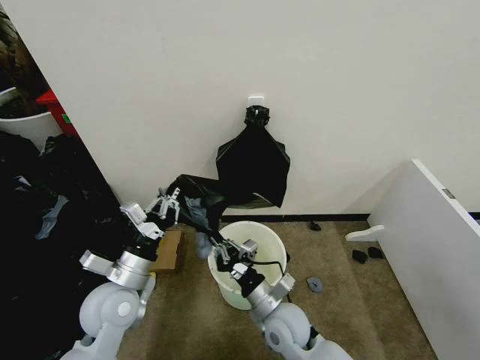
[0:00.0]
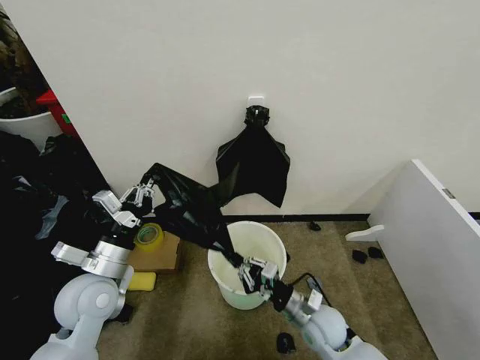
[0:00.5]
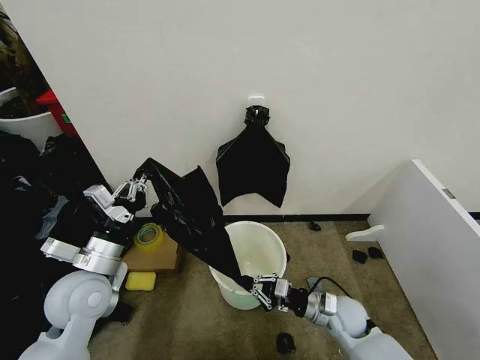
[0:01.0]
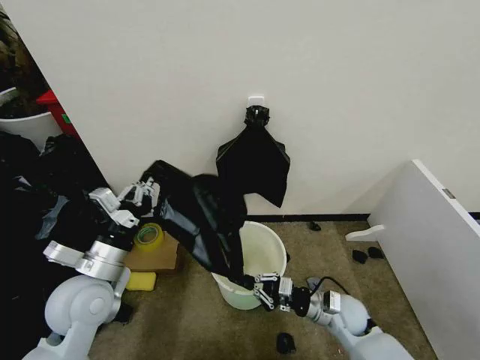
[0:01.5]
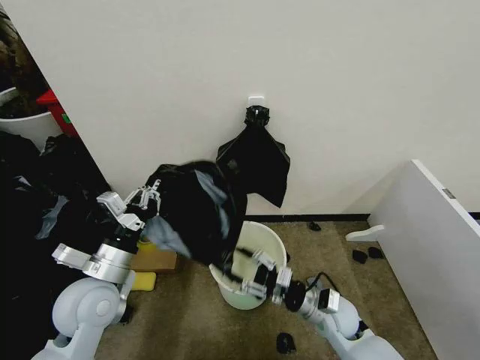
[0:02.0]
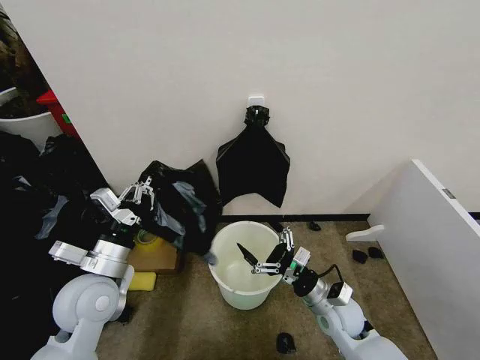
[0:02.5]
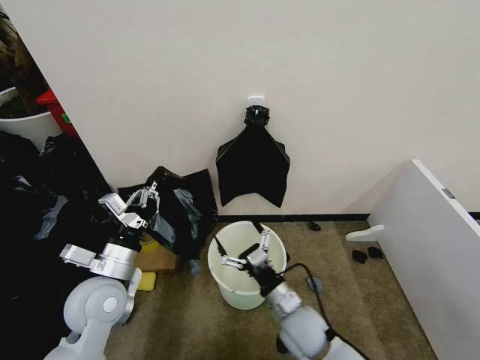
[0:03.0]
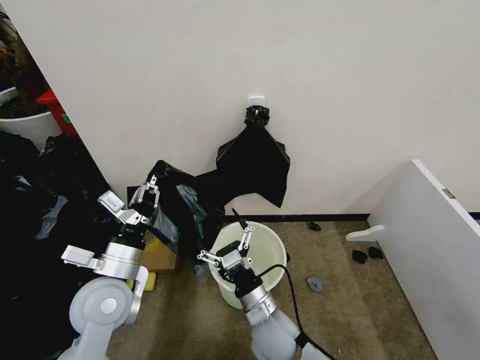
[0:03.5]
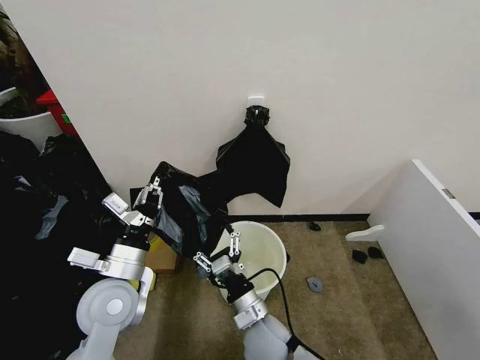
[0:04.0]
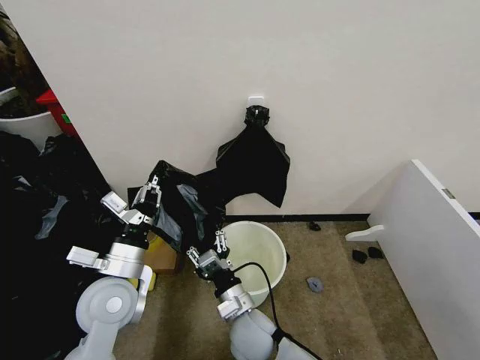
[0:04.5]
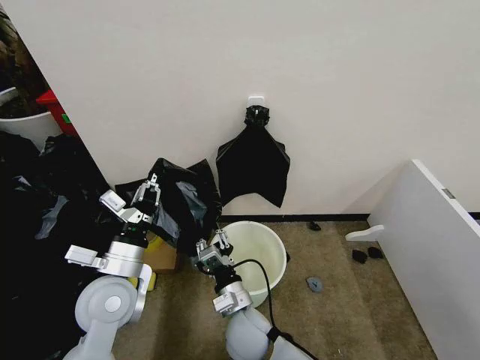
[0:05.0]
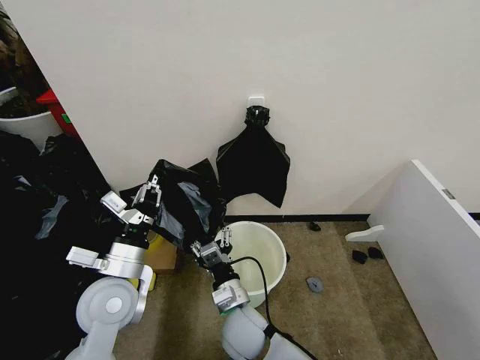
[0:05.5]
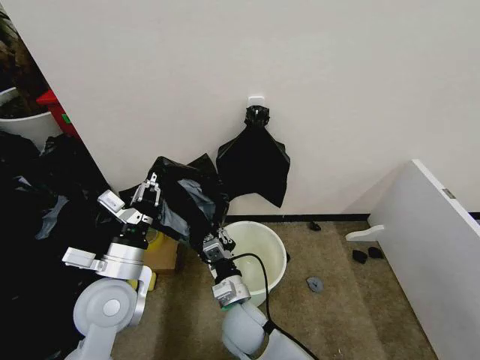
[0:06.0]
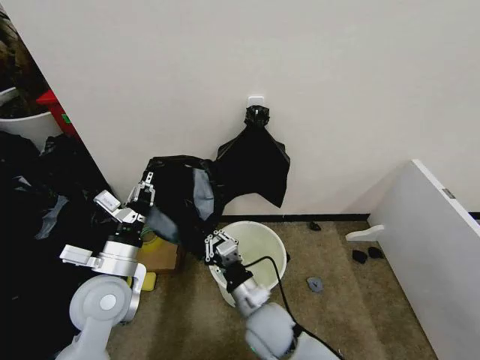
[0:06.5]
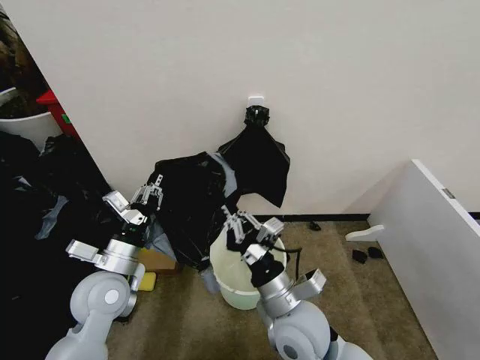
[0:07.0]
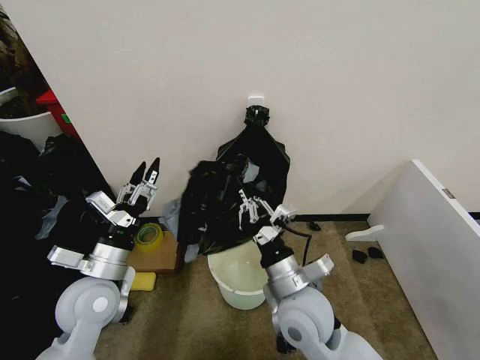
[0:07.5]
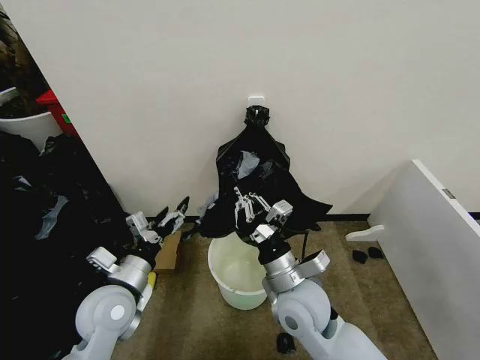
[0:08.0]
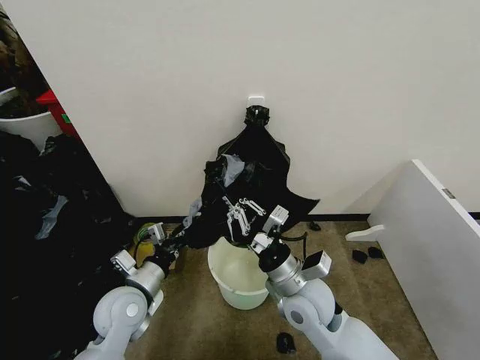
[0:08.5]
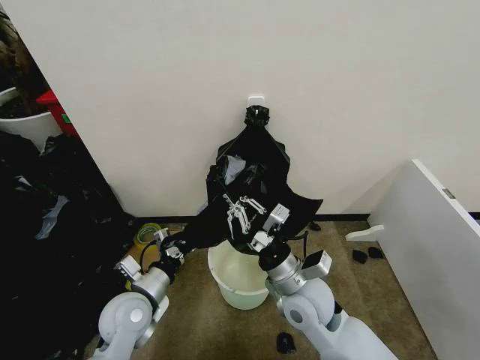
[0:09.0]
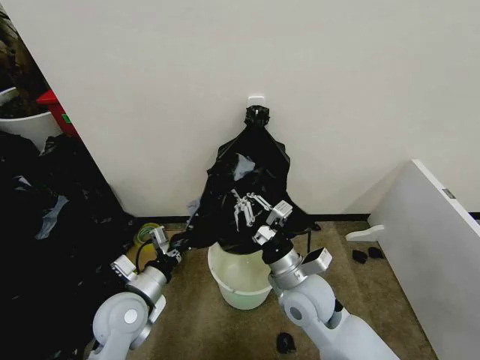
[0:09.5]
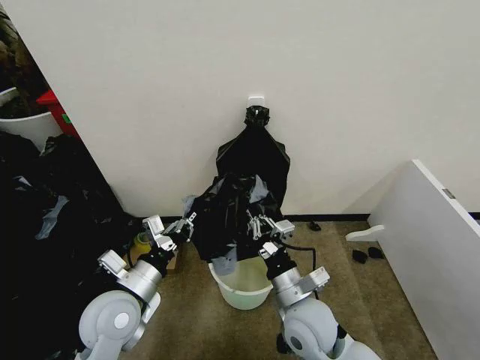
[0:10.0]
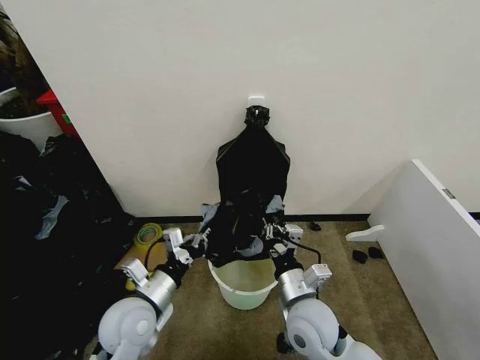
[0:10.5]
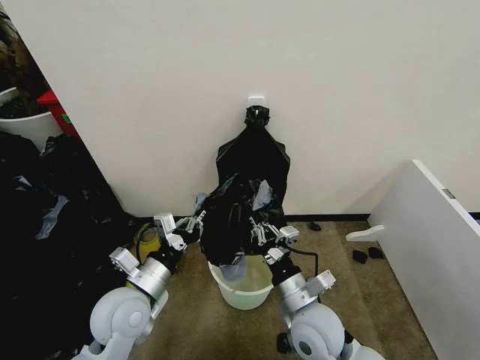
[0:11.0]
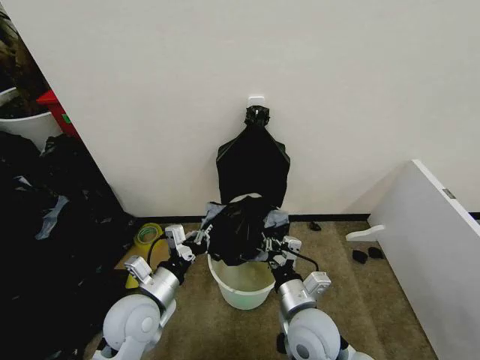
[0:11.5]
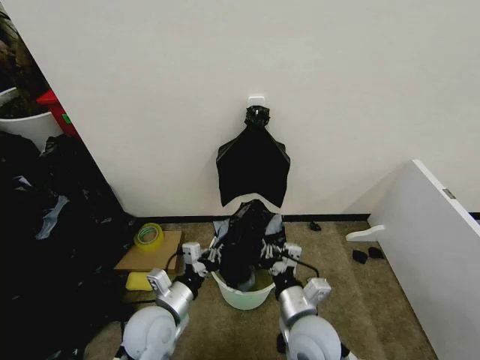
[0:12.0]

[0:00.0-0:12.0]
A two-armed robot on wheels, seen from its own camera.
Task of the whole recording: Place the garbage bag over the trash bin.
0:00.0 to 0:02.0: The right gripper shifts approximately 10 cm to the right, and opens its fingers.
0:02.0 to 0:04.0: The right gripper goes approximately 15 cm to the left.
0:04.0 to 0:06.0: The right gripper moves about 5 cm, and closes.
0:06.0 to 0:08.0: The left gripper opens, while the right gripper goes approximately 15 cm to the right and upward.
0:08.0 to 0:10.0: The left gripper closes its fingers.
0:10.0 to 0:12.0: The left gripper shifts roughly 10 cm downward and to the right.

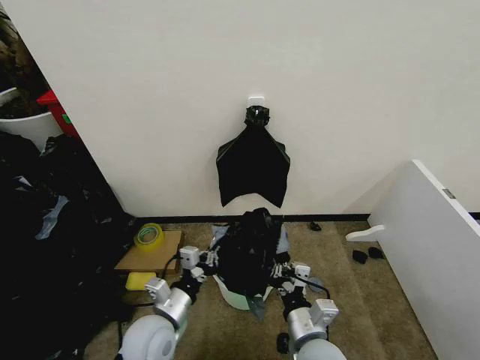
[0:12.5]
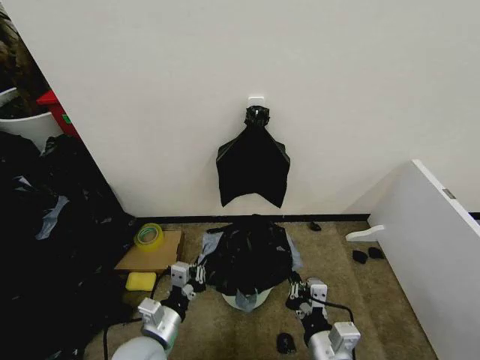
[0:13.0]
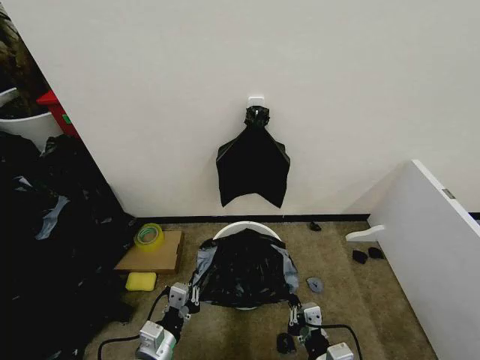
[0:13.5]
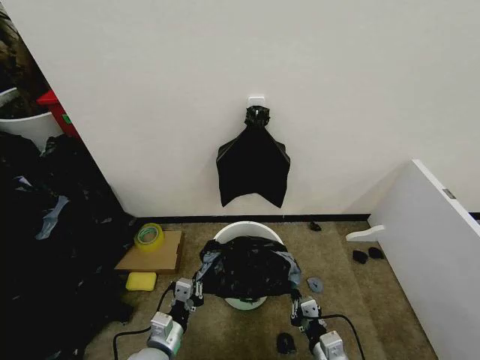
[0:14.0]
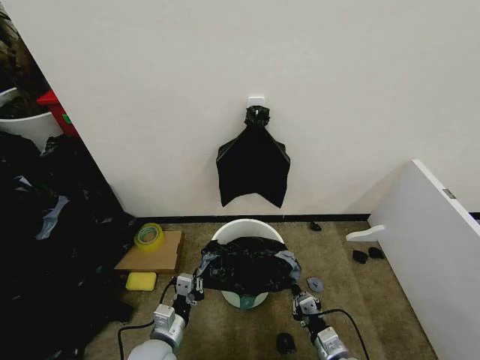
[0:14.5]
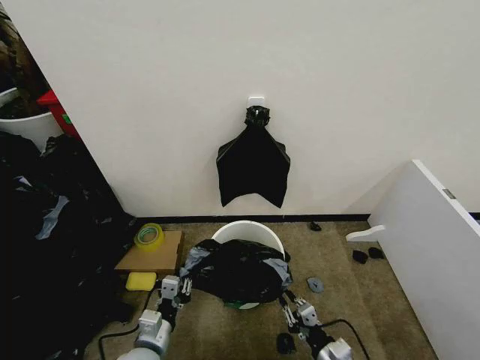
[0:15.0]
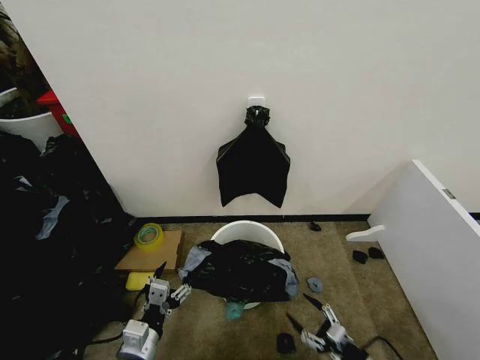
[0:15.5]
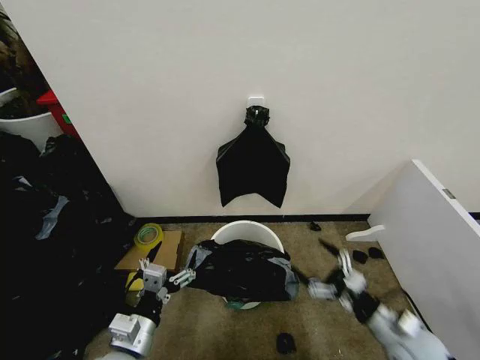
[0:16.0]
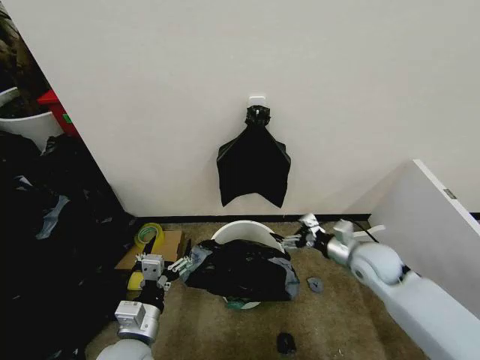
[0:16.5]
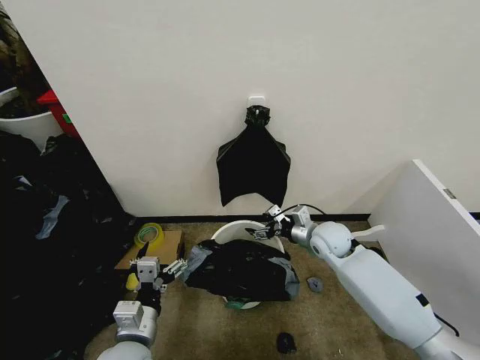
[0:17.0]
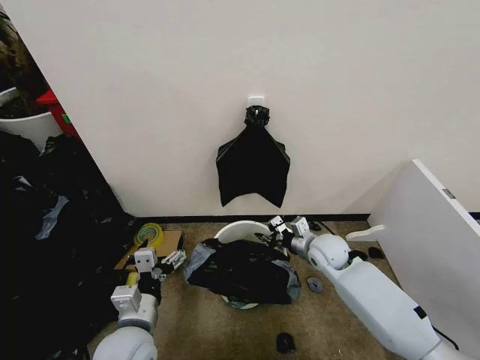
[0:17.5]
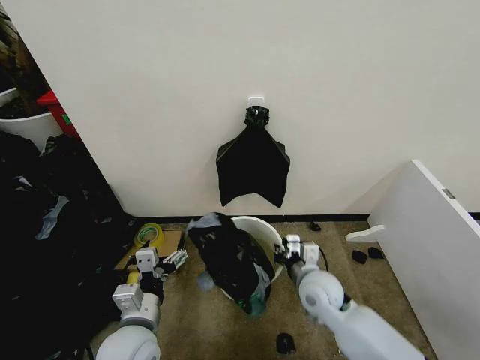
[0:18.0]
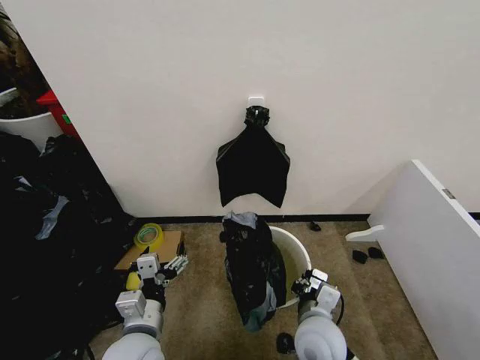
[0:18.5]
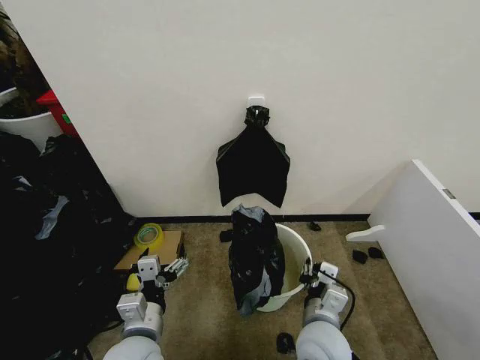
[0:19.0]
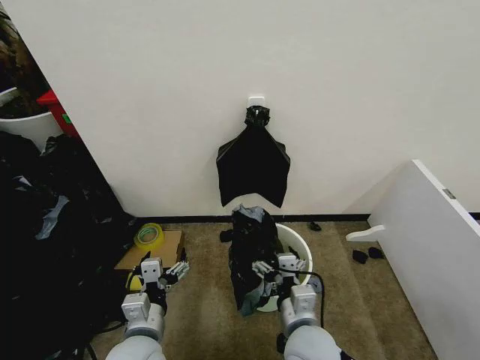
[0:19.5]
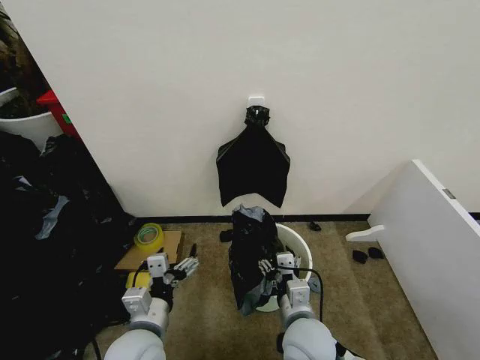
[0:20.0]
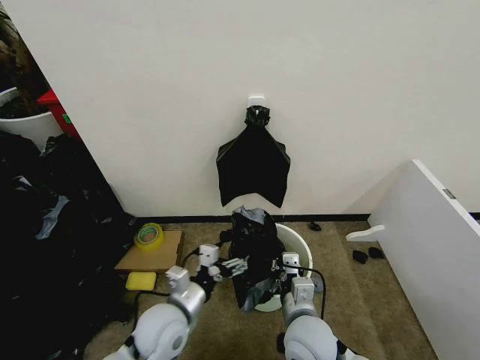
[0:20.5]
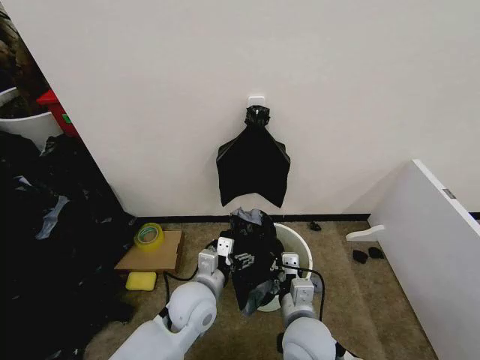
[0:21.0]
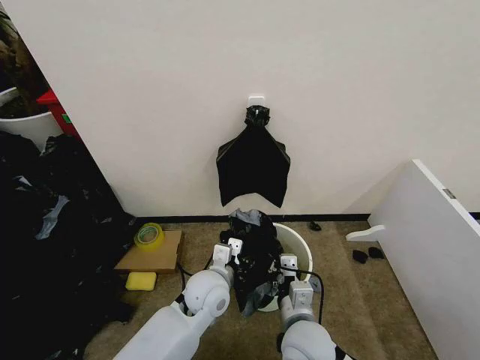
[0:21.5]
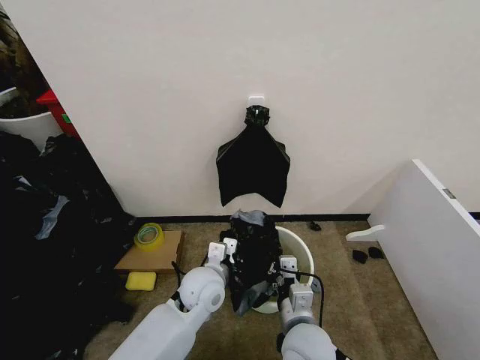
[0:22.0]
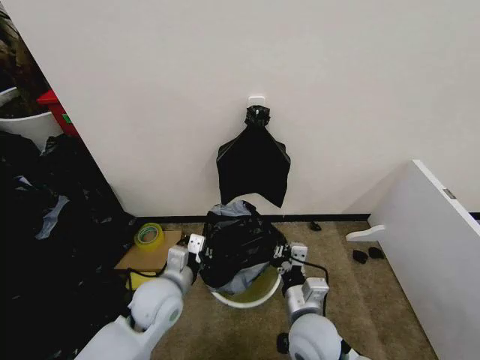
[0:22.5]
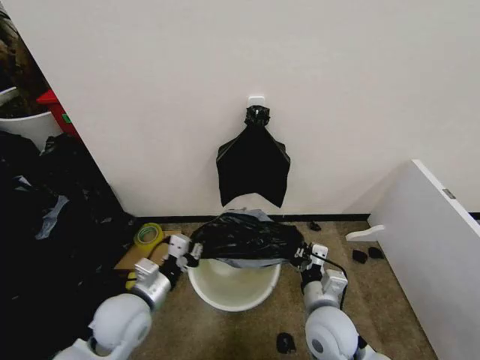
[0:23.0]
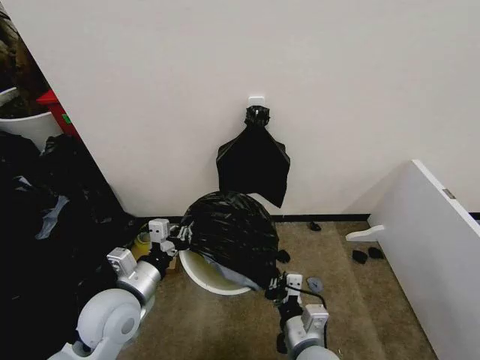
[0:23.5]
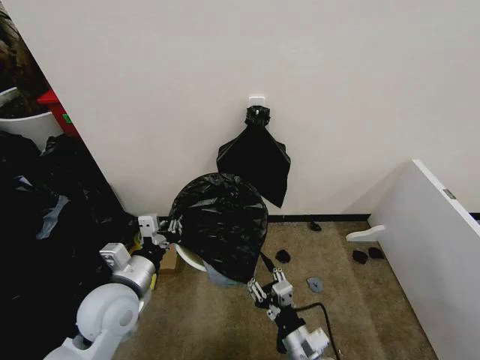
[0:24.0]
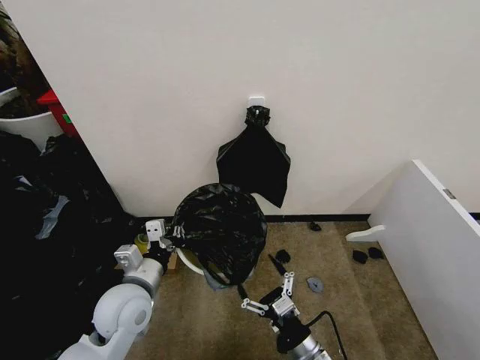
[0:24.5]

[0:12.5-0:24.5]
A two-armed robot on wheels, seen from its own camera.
Task of the whole recording: Place the garbage bag over the trash bin.
0:12.5 to 0:14.5: The right gripper moves downward and to the right, about 20 cm; the left gripper travels downward by approximately 10 cm.
0:14.5 to 0:16.5: The left gripper moves upward, about 10 cm, and opens up. The right gripper shifts about 25 cm forward and upward, and opens up.
0:16.5 to 0:18.5: The right gripper moves to the left and backward, approximately 20 cm, and closes up.
0:18.5 to 0:20.5: The left gripper moves forward, about 5 cm; the right gripper opens, then closes once more.
0:20.5 to 0:22.5: The left gripper moves approximately 10 cm to the right and comes back, and closes up.
0:22.5 to 0:24.5: The left gripper goes some 5 cm to the left. Meanwhile the right gripper is displaced downward and backward by some 10 cm, and opens its fingers.

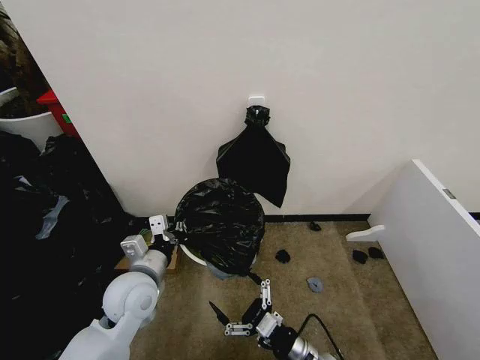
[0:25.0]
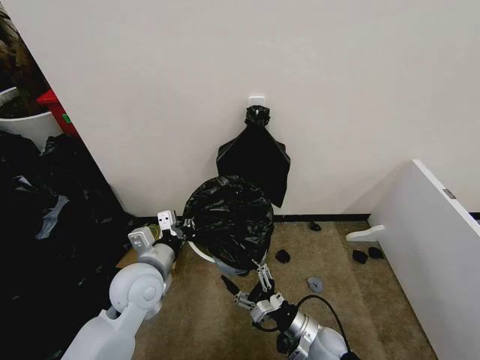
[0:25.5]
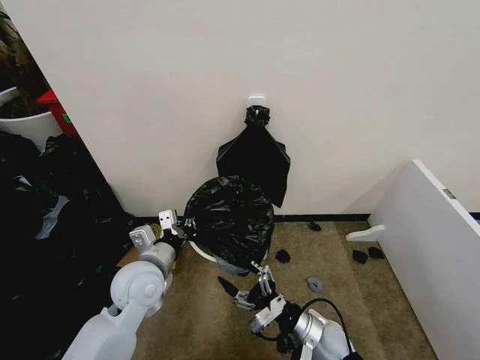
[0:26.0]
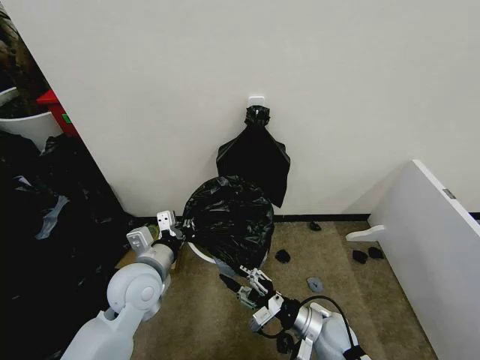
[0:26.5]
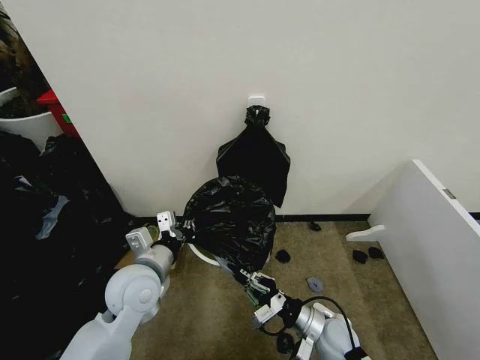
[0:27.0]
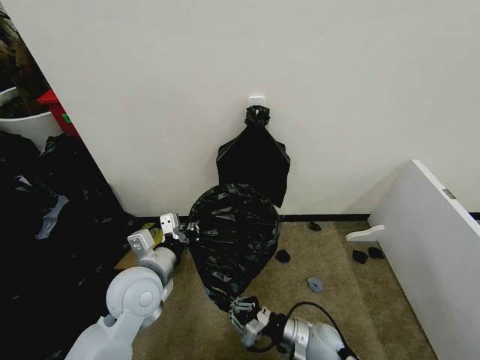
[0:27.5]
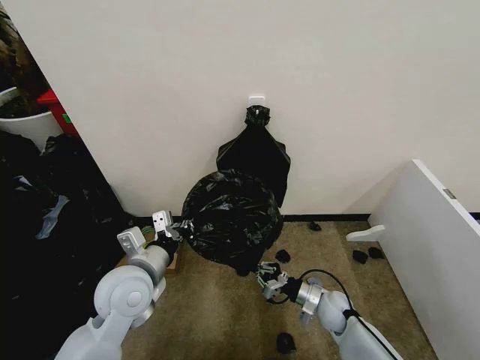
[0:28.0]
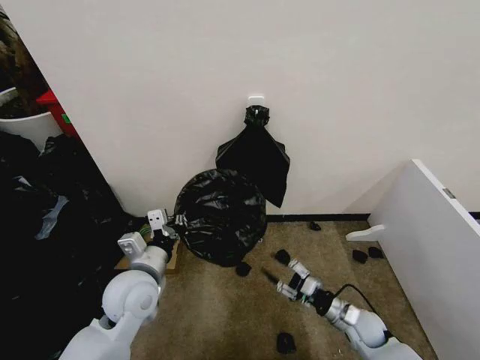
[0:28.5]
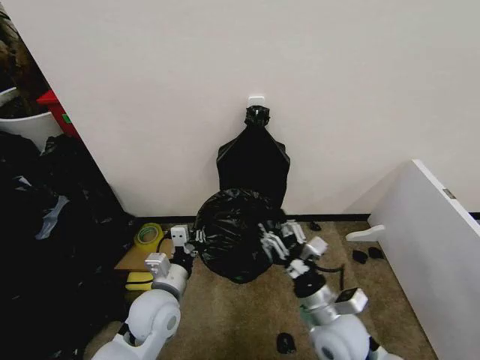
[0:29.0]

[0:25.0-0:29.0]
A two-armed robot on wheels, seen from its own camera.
Task of the whole recording: Place the garbage bag over the trash bin.
0:25.0 to 0:27.0: The right gripper moves forward, some 10 cm, and closes its fingers.
0:27.0 to 0:29.0: The left gripper heads downward, covering approximately 5 cm. Meanwhile the right gripper travels upward by about 10 cm, and opens its fingers.
